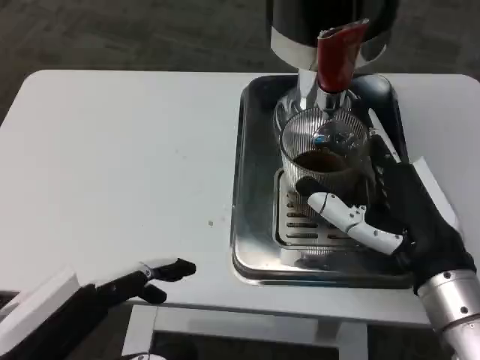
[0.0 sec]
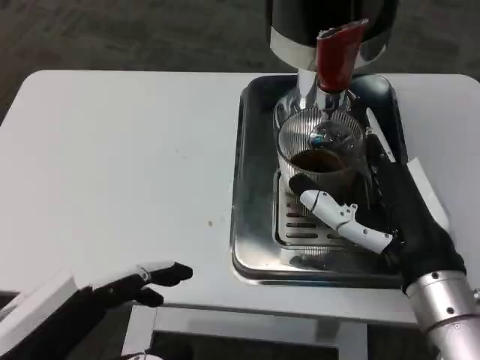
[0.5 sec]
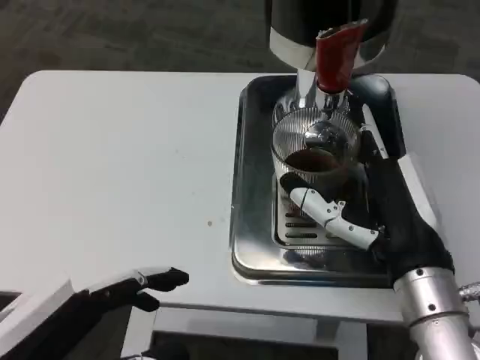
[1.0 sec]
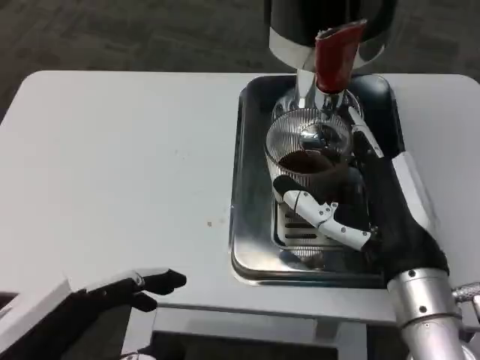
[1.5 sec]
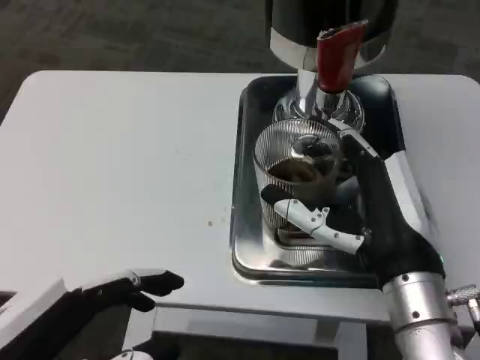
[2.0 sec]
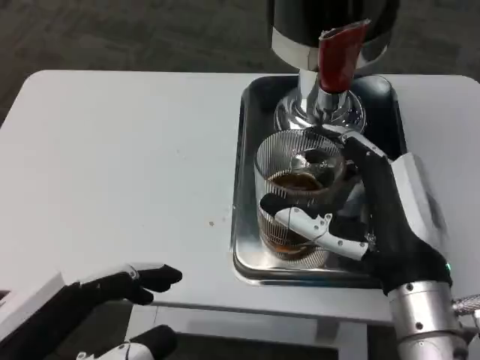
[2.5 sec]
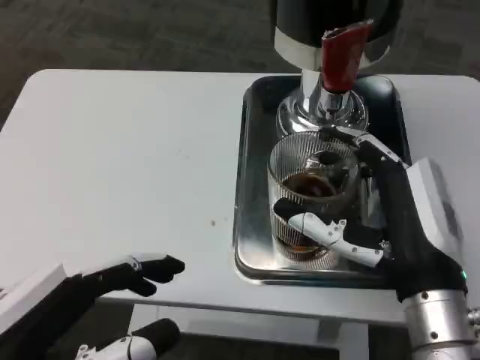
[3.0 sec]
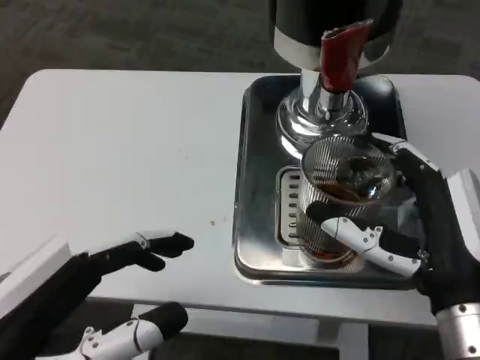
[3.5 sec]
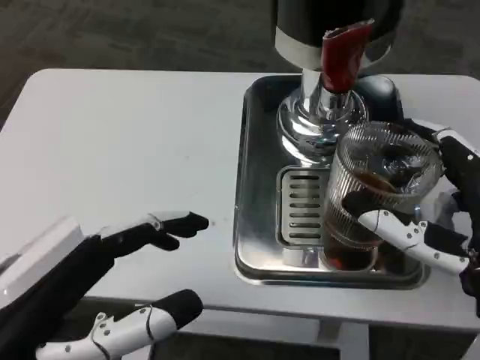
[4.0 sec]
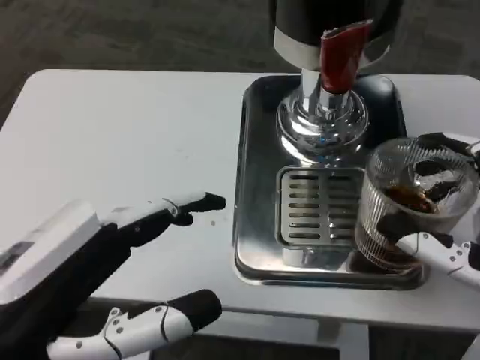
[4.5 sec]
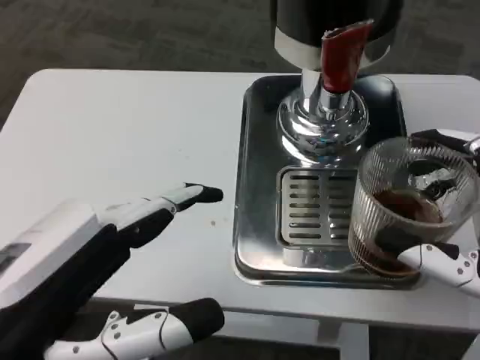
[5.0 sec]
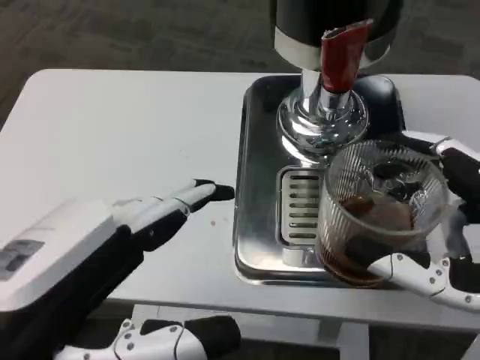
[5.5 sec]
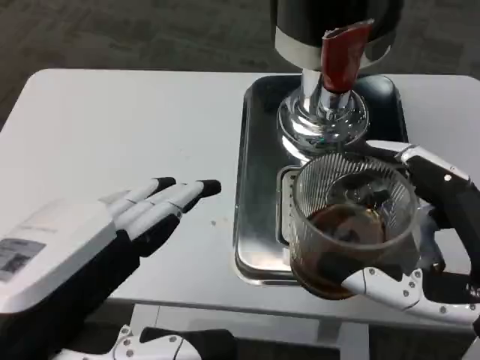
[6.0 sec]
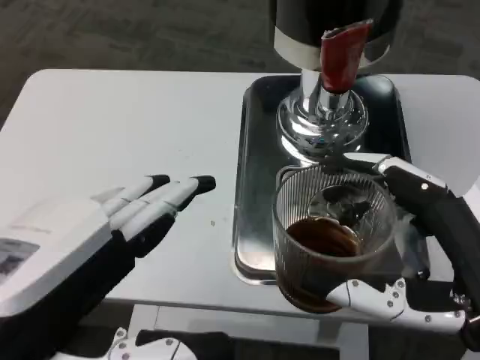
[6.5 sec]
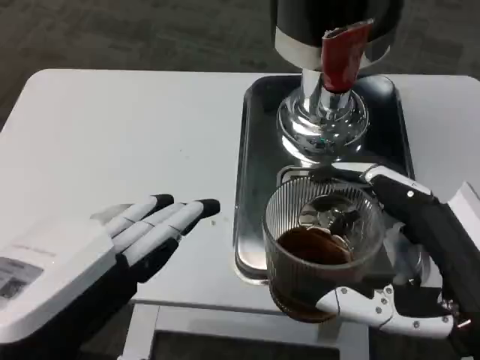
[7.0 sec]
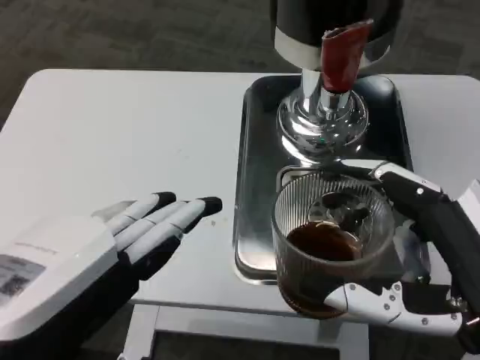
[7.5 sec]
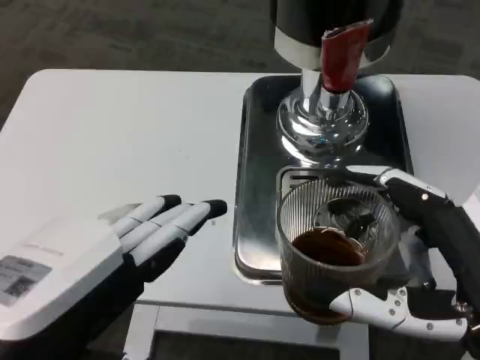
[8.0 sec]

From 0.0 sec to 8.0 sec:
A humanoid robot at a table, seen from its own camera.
Task of the whole recording: Grasp the cup under the faucet to collect the drink, then remove the cup.
From 0.0 sec to 2.0 sec: The hands move only a little.
From 2.0 sec to 4.0 sec: The right hand shifts approximately 5 cm to the right.
From 4.0 sec to 6.0 sec: The right hand shifts by about 5 cm.

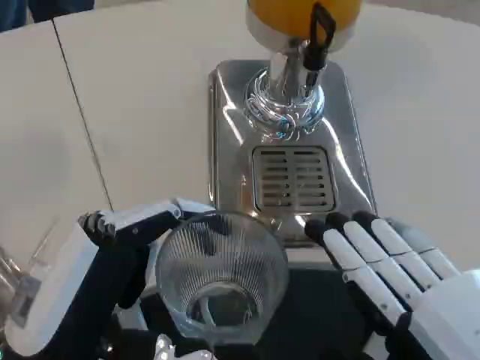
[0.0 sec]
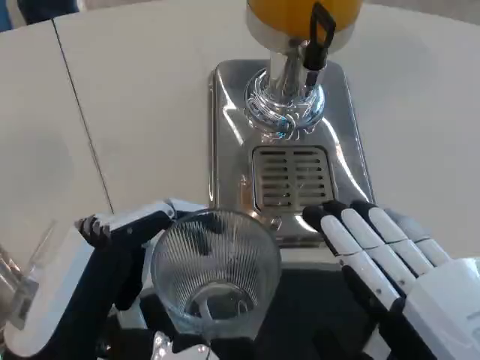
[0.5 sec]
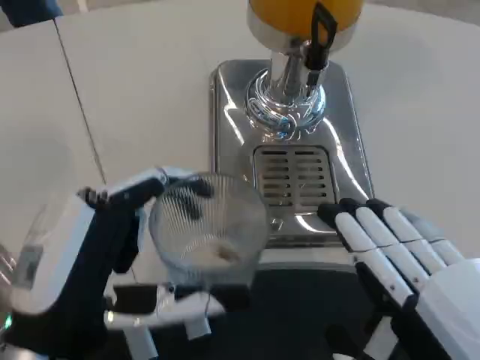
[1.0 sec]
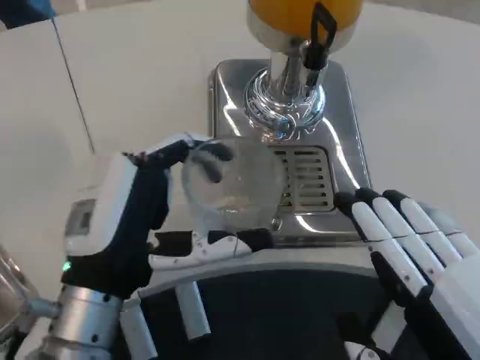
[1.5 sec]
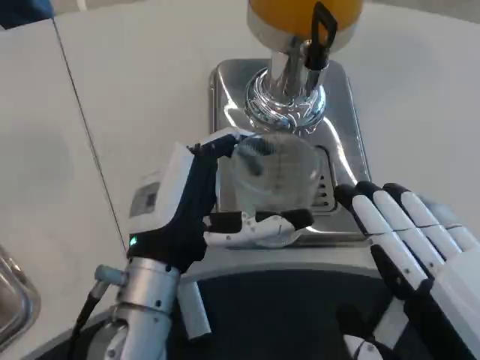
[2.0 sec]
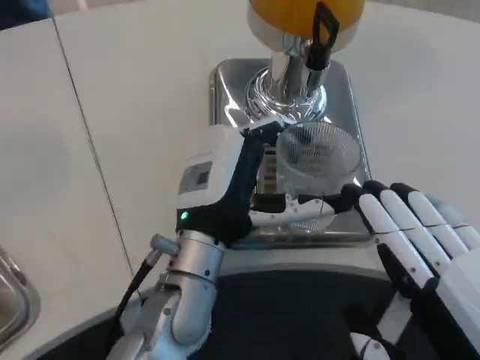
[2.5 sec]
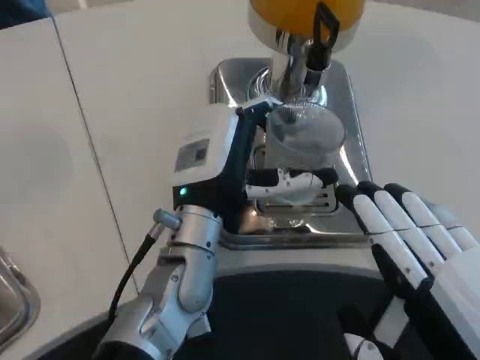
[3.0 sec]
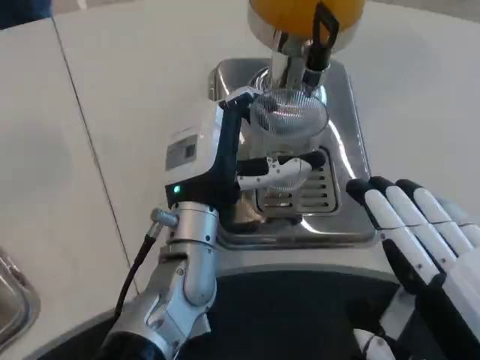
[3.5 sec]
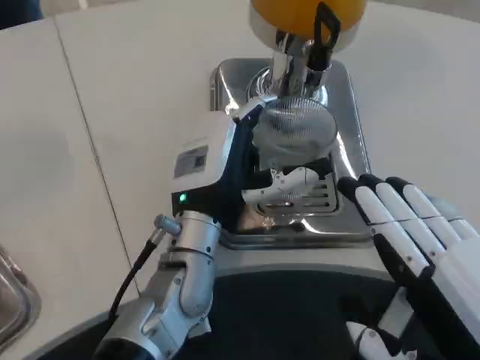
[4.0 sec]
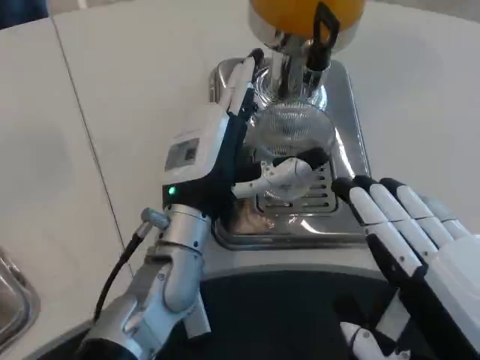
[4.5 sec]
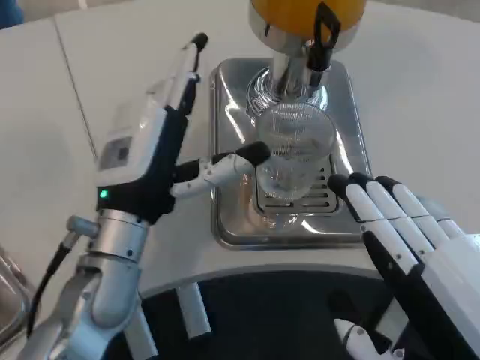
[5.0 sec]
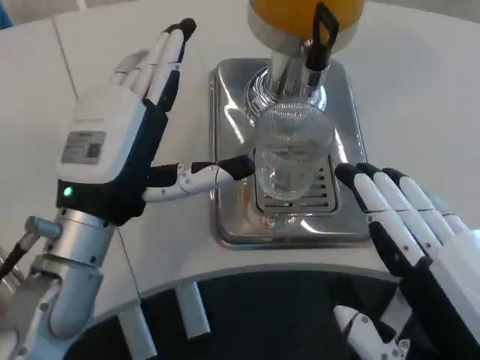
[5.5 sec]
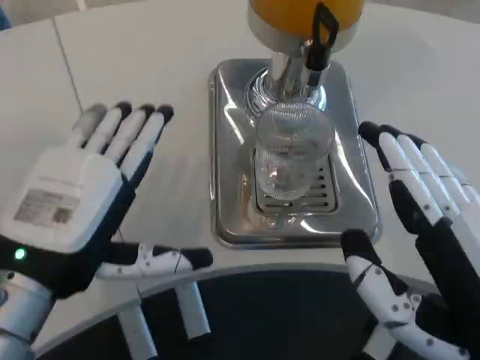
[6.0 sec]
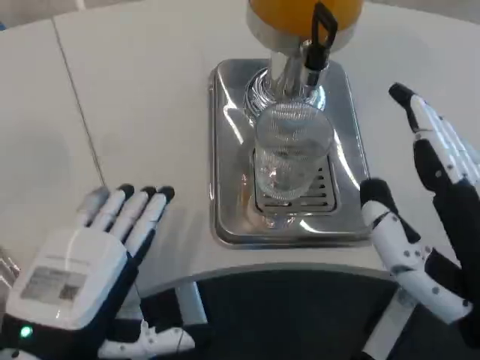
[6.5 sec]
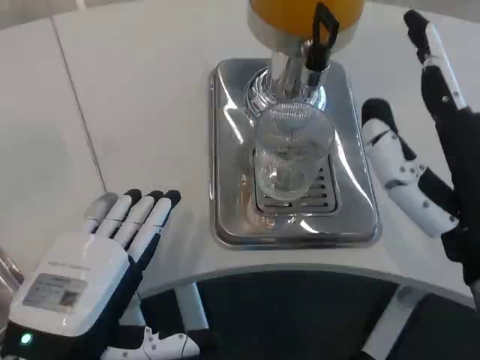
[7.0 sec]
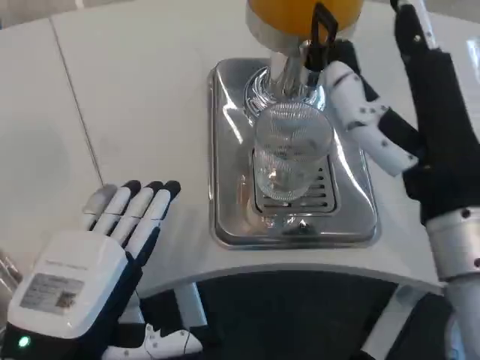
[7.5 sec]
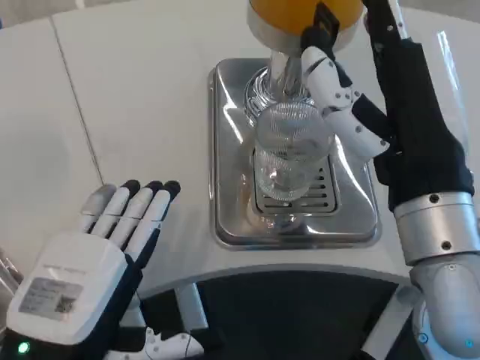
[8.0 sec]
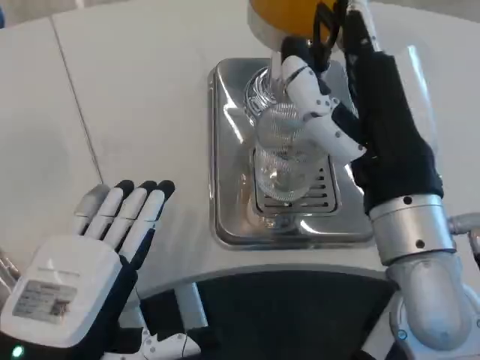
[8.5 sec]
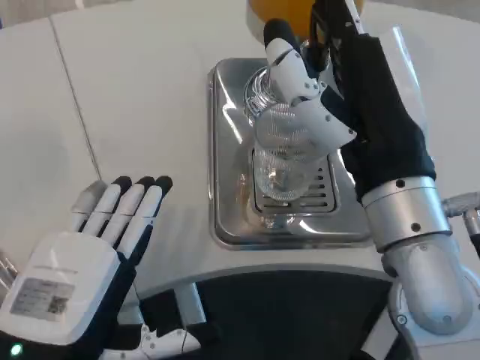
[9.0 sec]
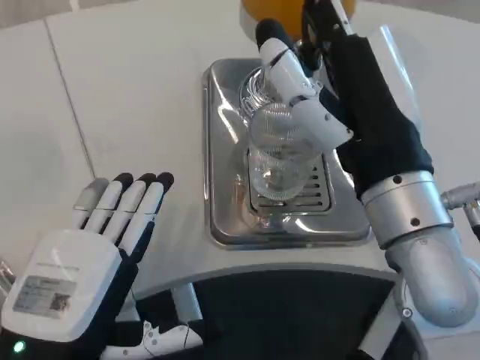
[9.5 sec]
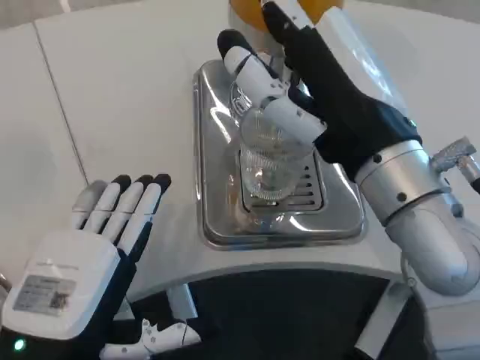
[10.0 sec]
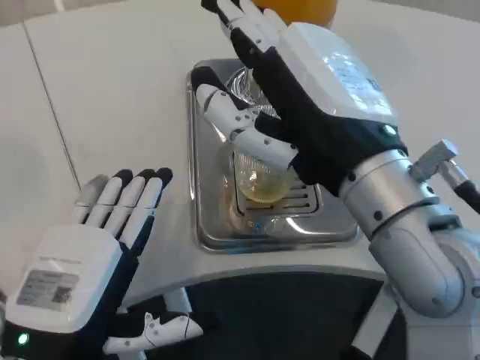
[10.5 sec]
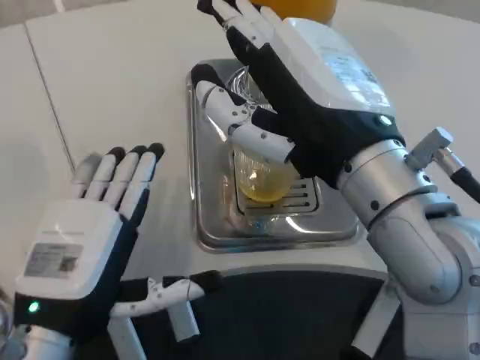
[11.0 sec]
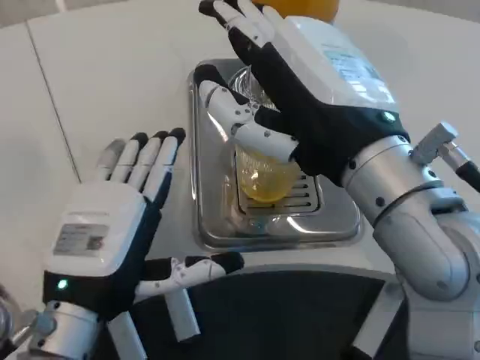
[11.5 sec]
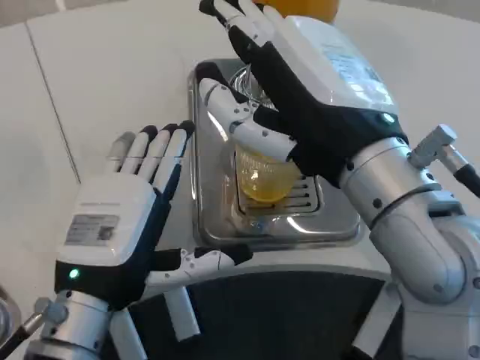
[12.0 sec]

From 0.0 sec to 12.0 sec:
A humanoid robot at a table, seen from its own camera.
Task of the whole recording: Grasp the cup under the faucet to collect the drink, then remove the cup.
From 0.0 sec to 2.0 sec: The left hand travels forward and to the right by approximately 15 cm.
From 2.0 sec to 4.0 sec: The left hand moves forward, about 5 cm.
From 4.0 sec to 6.0 sec: The left hand shifts roughly 20 cm to the left and backward.
From 6.0 sec to 8.0 sec: The left hand heads backward, covering some 5 cm, while the right hand moves forward and to the left, about 15 cm.
From 10.0 sec to 12.0 sec: The left hand shifts roughly 5 cm forward.

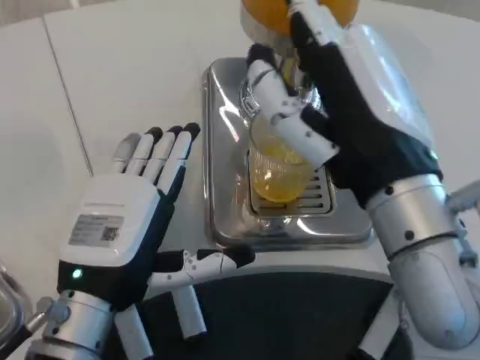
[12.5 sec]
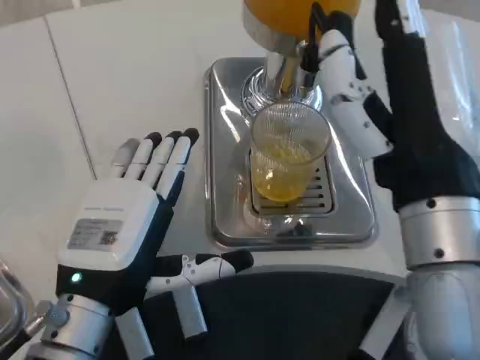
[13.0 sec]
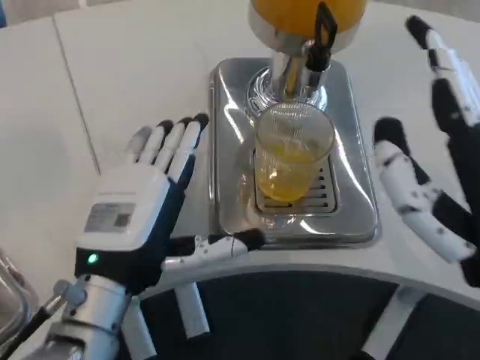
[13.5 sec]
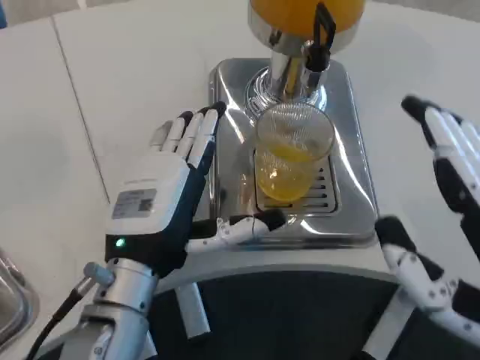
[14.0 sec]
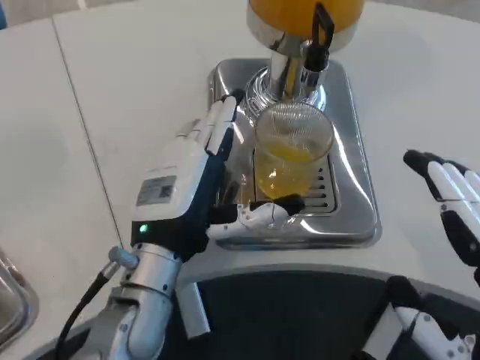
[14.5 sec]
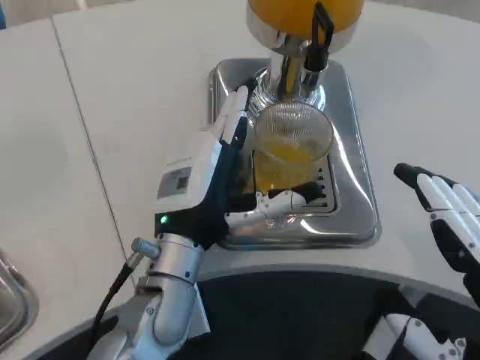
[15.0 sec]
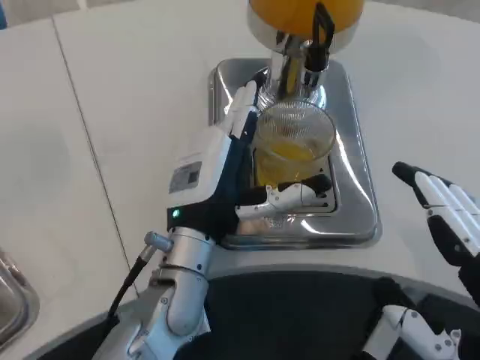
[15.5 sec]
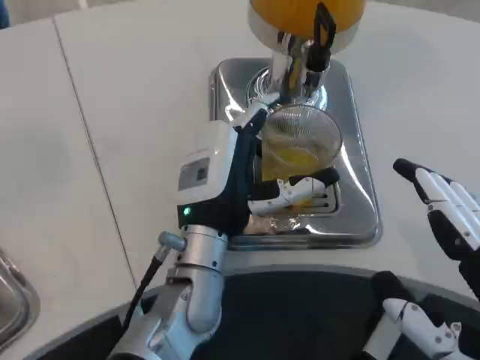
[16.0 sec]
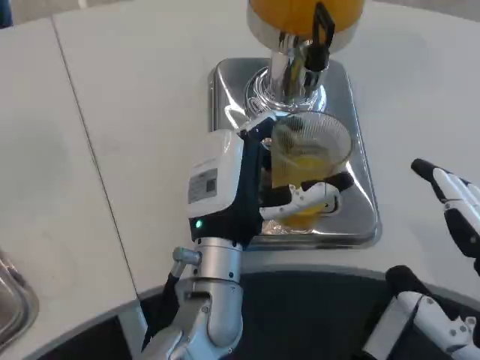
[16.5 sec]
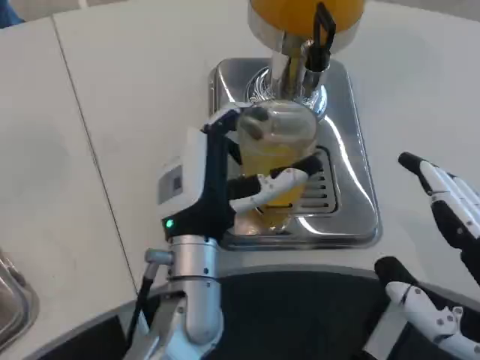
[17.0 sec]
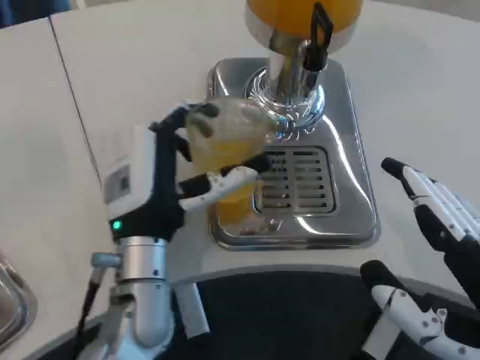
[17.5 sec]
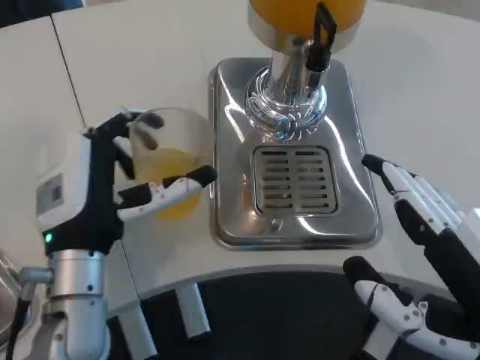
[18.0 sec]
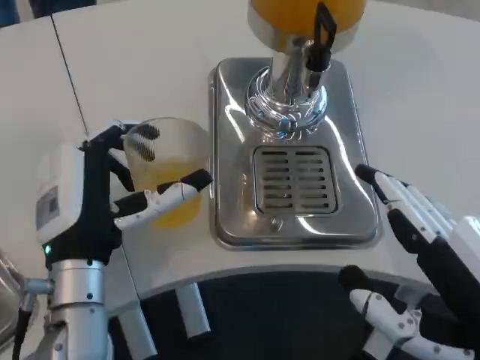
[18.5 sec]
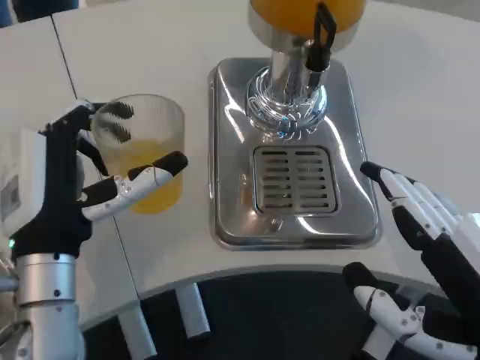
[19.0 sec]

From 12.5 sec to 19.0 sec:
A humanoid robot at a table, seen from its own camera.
Task of the whole recording: Grasp the cup under the faucet to collect the drink, then remove the cup.
From 12.5 sec to 14.5 sec: The left hand shifts roughly 10 cm forward and to the right, while the right hand is displaced backward, to the right and downward by some 20 cm.
From 14.5 sec to 17.0 sec: The left hand ends up roughly 5 cm from where it was.
From 17.0 sec to 19.0 sec: The left hand goes approximately 10 cm to the left.
